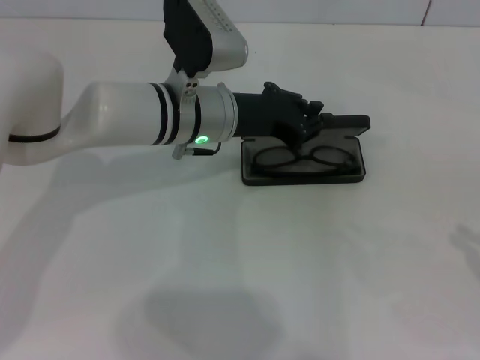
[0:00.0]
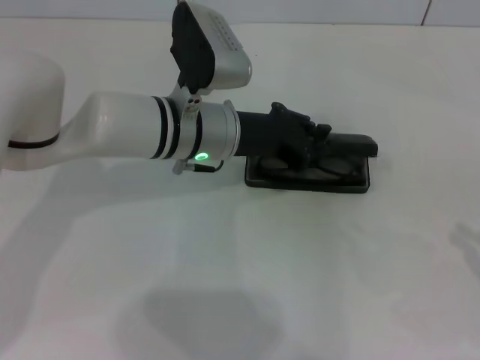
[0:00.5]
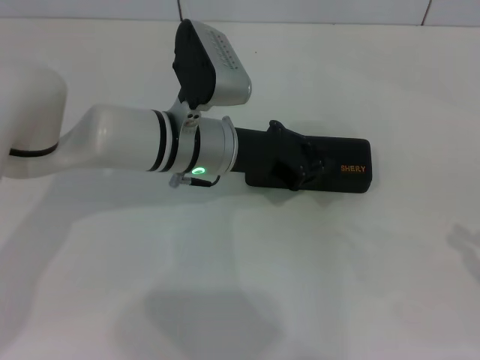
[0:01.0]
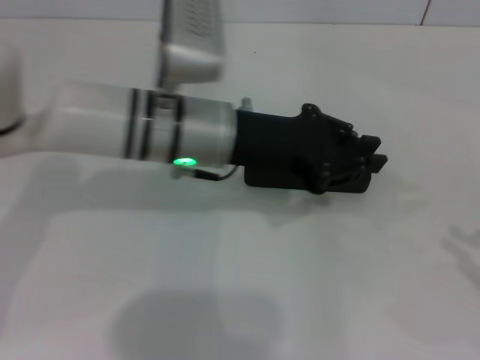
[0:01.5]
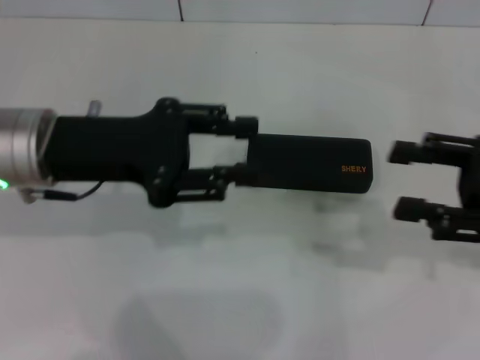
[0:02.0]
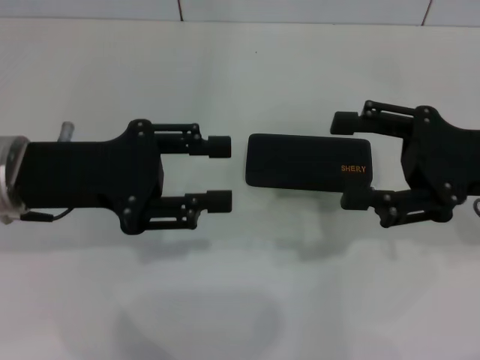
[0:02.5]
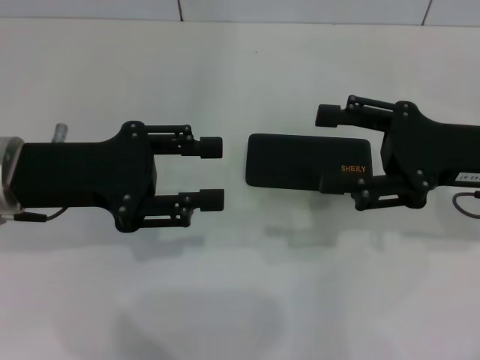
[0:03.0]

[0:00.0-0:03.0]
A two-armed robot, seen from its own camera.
0:00.0 to 0:01.5: The left gripper moves approximately 5 cm.
0:01.5 to 0:03.0: The left gripper travels to the left by roughly 15 cm, and opens up. The right gripper heads to the left and forward, covering roughly 20 cm, and opens its fingers.

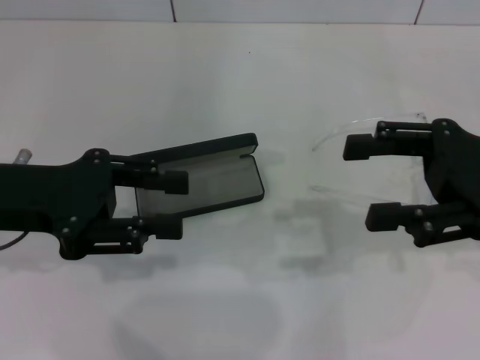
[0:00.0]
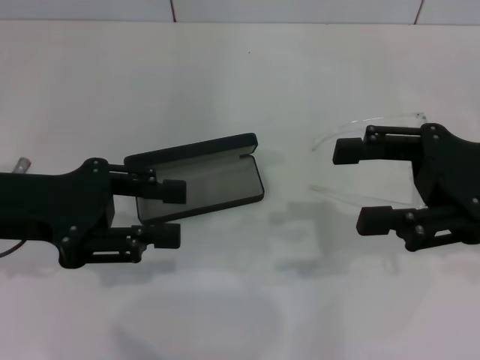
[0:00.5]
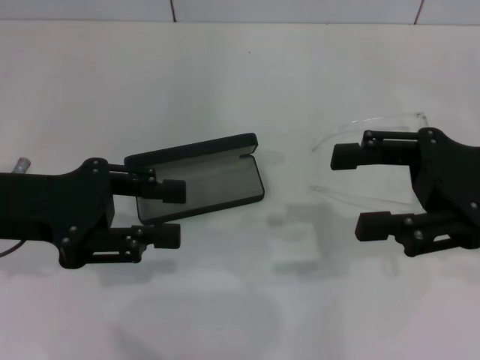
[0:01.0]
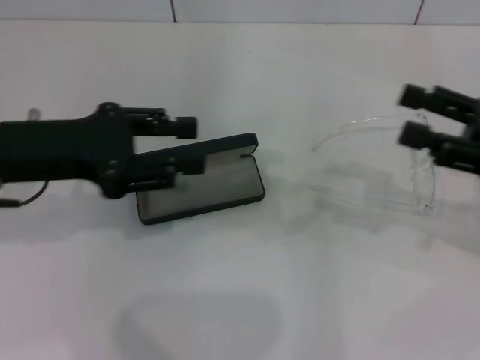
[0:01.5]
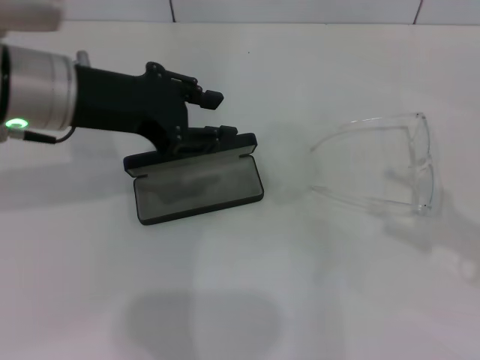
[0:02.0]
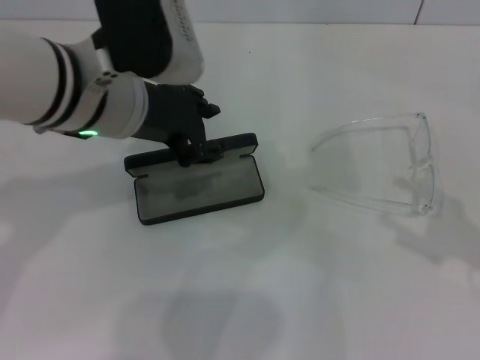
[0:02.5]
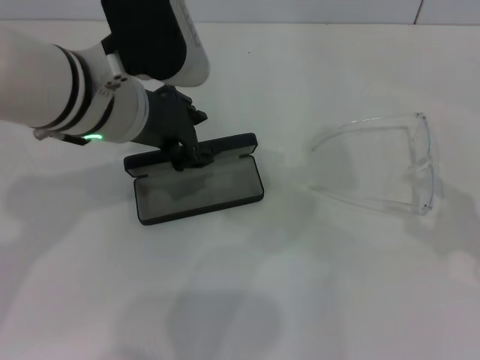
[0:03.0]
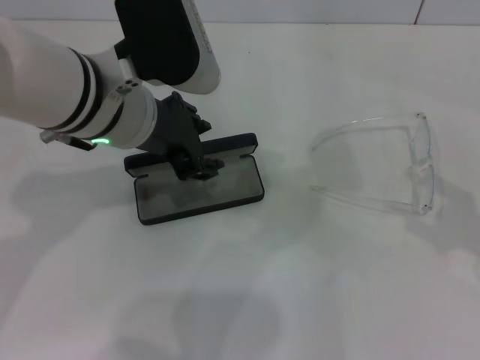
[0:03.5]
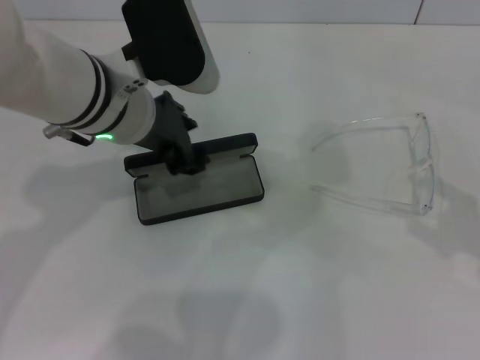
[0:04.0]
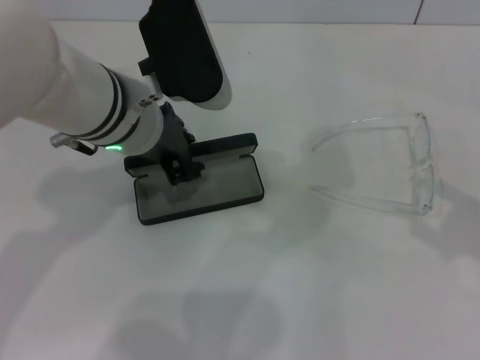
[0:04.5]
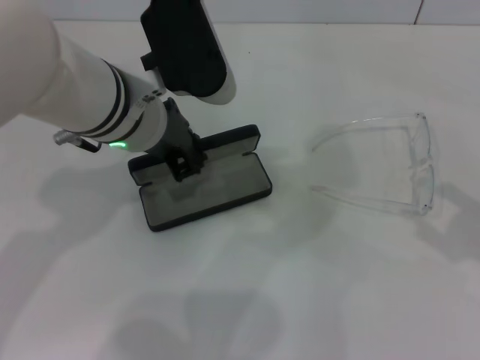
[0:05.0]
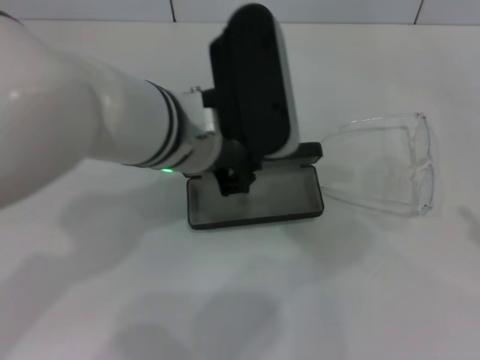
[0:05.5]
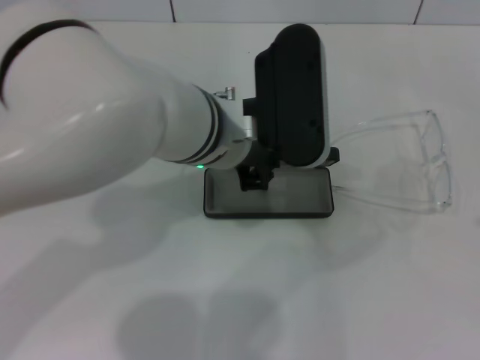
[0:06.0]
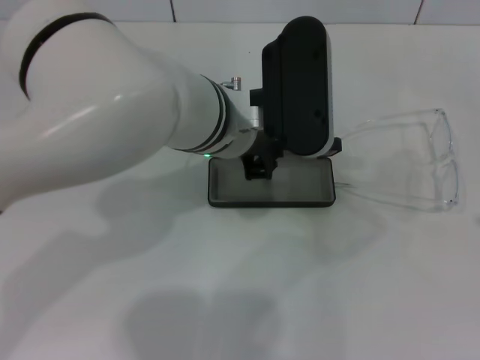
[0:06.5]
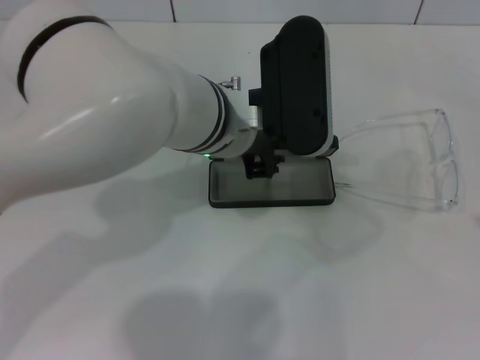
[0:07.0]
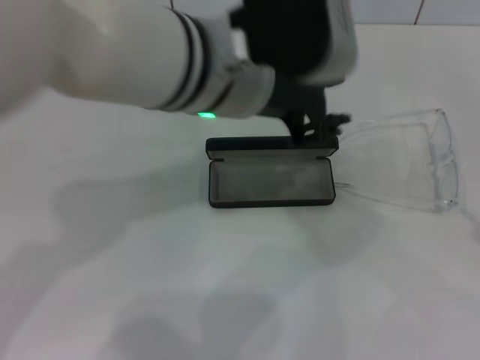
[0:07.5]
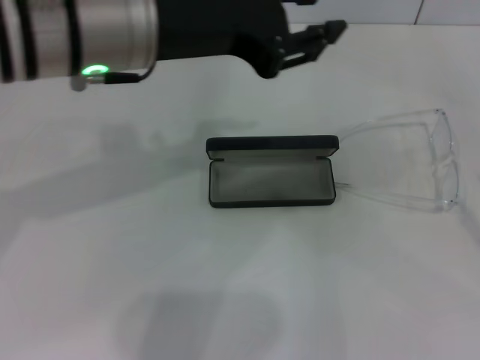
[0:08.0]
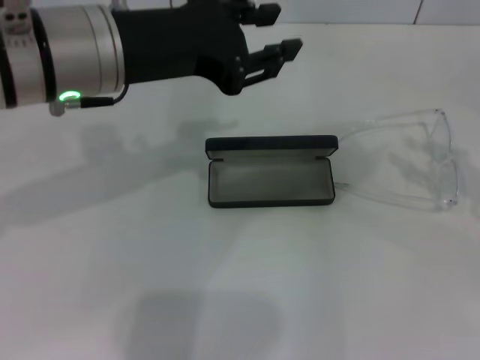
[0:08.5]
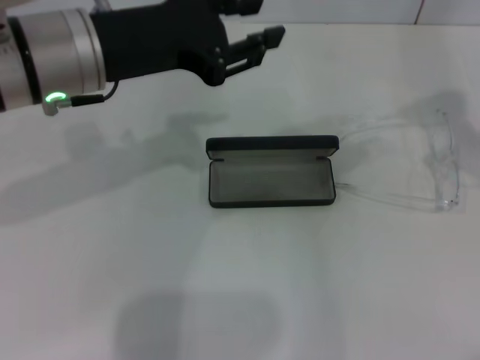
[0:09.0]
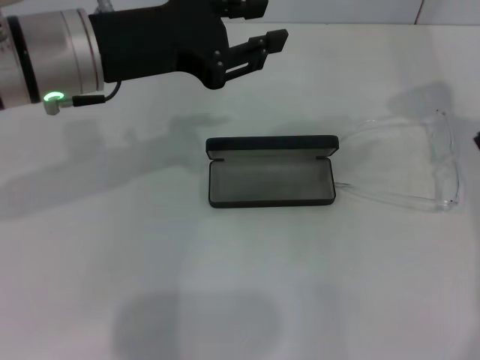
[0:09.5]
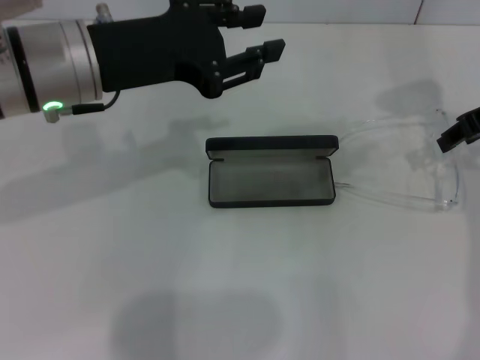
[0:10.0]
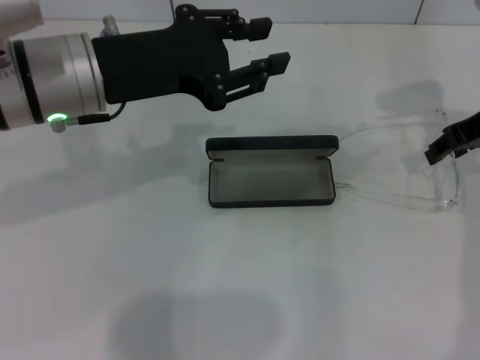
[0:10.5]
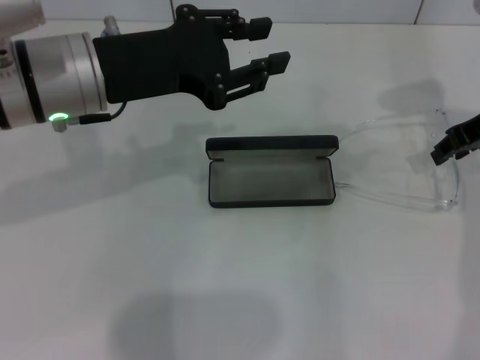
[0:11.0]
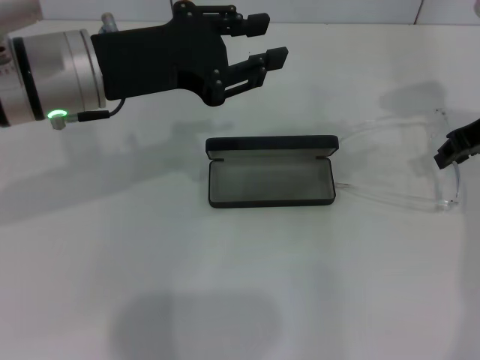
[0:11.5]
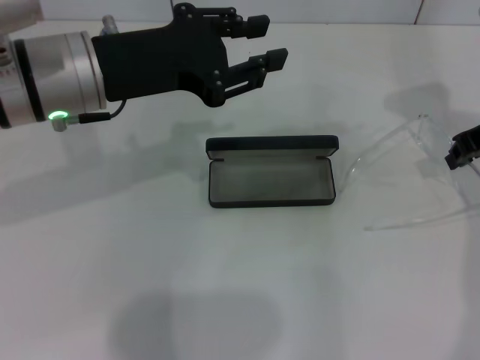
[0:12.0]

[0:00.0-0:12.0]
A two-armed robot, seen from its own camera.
Step, 0:00.0 to 0:04.5: Grab the glasses case with your left hand.
Step, 0:05.0 to 0:07.0: Place the glasses case in the center of the table with your left hand.
Step, 0:07.5 to 0:11.5: Grab the eyeglass frame with your right hand.
0:00.0 to 0:02.0: The left gripper heads to the right, upward and forward, covering about 10 cm, while the right gripper moves to the right, backward and downward, some 10 cm.
0:02.0 to 0:04.0: The left gripper is displaced to the right by some 5 cm.
0:04.0 to 0:06.0: The left gripper goes about 10 cm to the right, and closes; the right gripper shifts roughly 5 cm backward.
0:06.0 to 0:08.0: The left gripper heads upward and to the left, covering roughly 15 cm, and opens.
0:08.0 to 0:10.0: The right gripper heads forward, to the left and upward, covering approximately 25 cm; the left gripper shifts approximately 5 cm downward.
0:10.0 to 0:12.0: There are only small adjustments of the grippers.

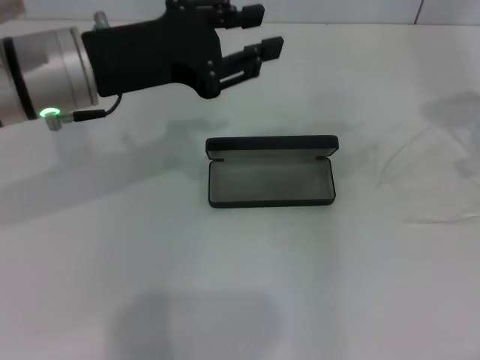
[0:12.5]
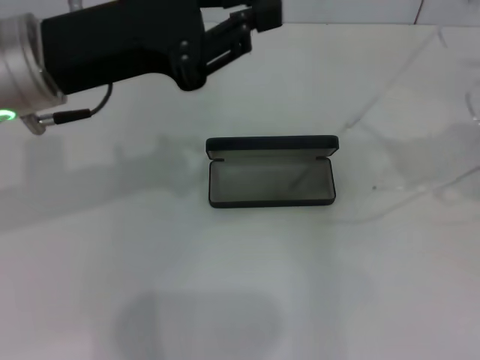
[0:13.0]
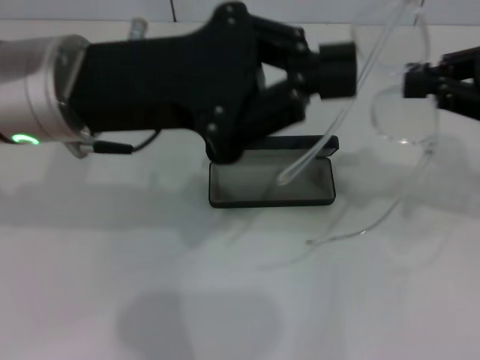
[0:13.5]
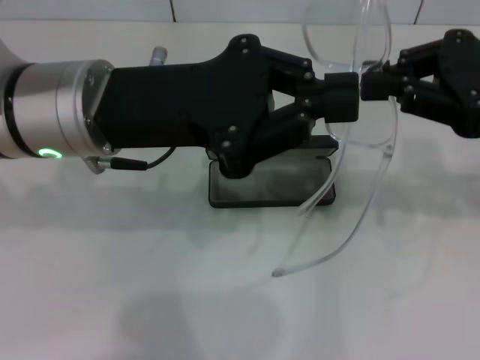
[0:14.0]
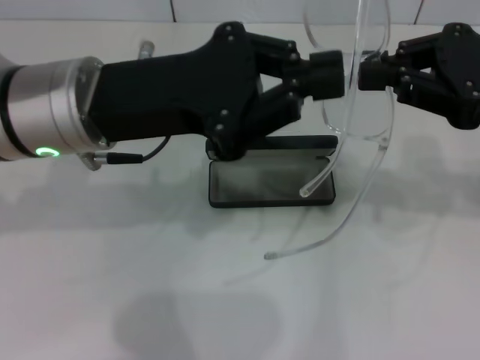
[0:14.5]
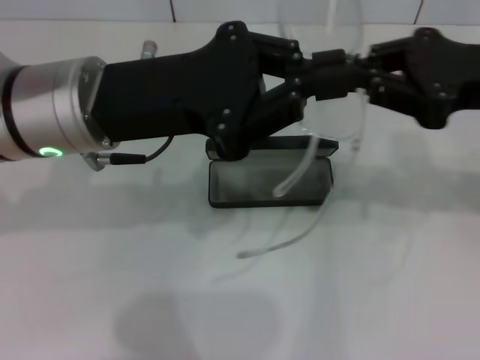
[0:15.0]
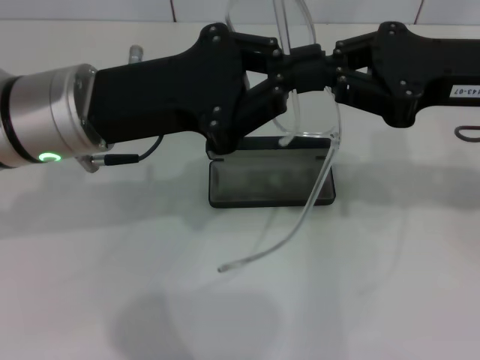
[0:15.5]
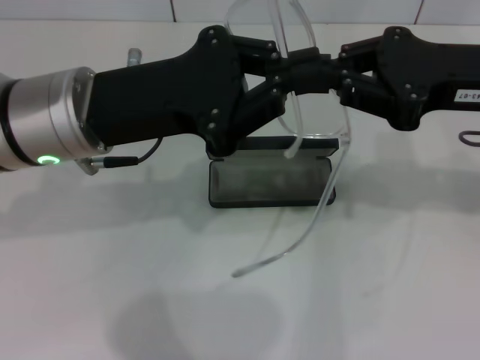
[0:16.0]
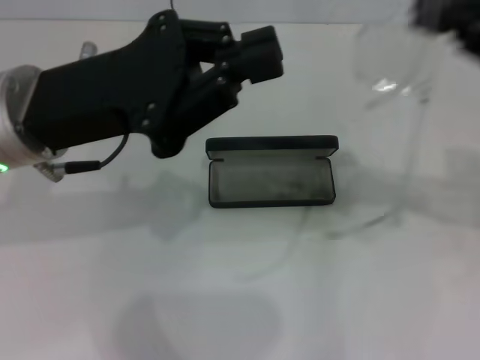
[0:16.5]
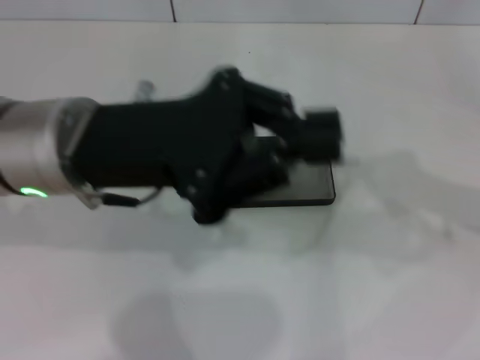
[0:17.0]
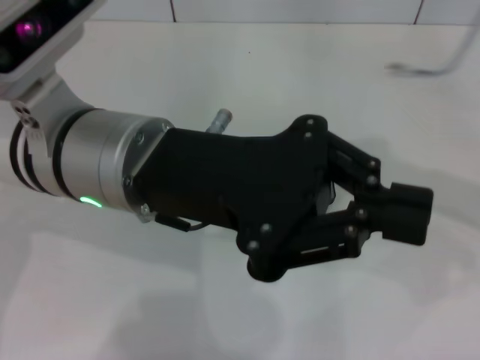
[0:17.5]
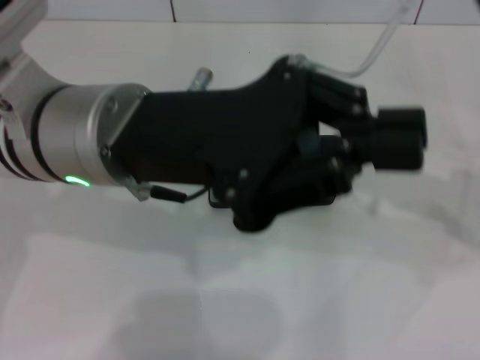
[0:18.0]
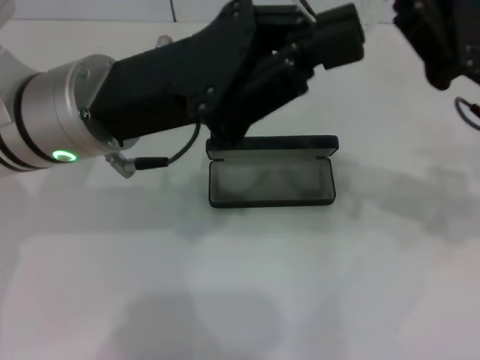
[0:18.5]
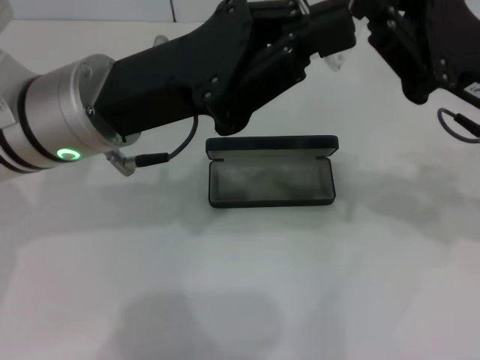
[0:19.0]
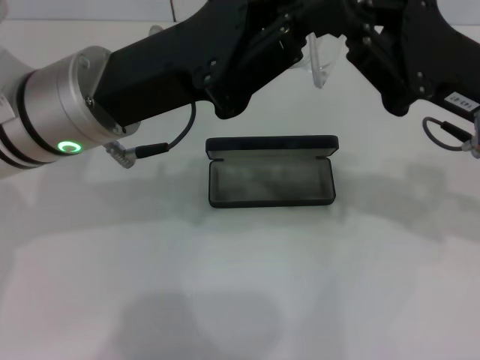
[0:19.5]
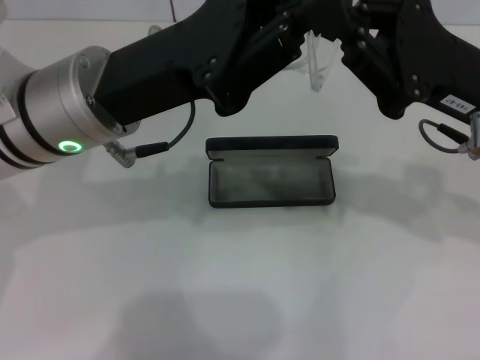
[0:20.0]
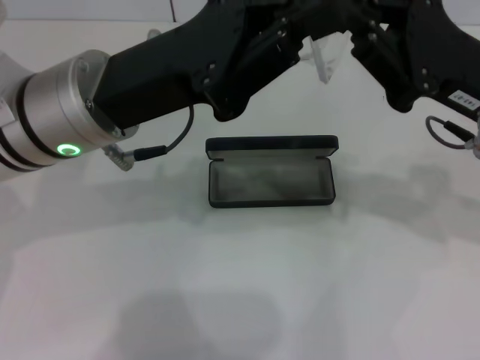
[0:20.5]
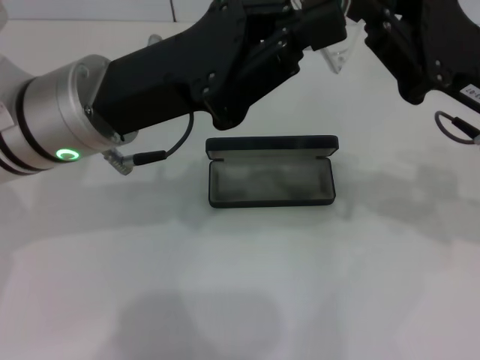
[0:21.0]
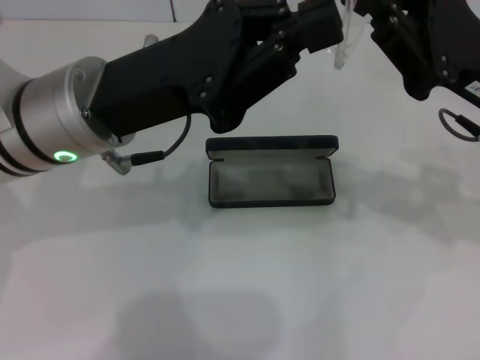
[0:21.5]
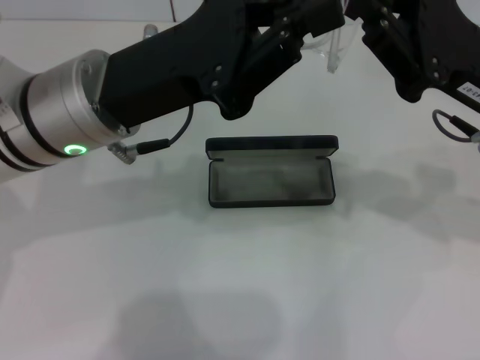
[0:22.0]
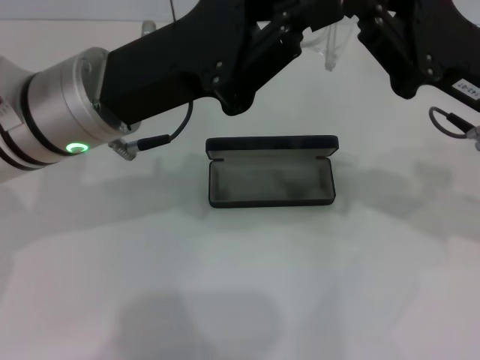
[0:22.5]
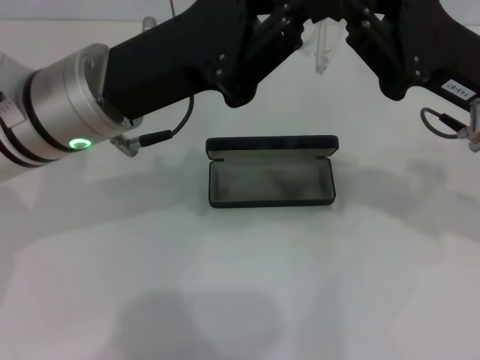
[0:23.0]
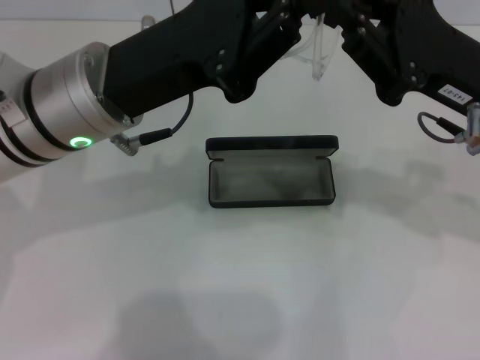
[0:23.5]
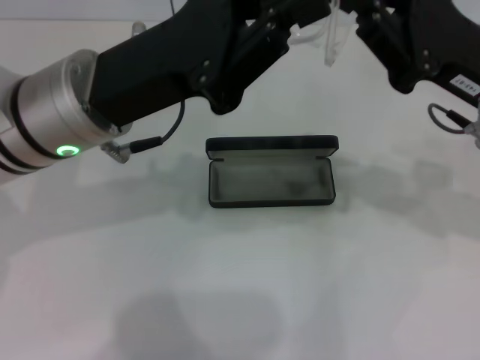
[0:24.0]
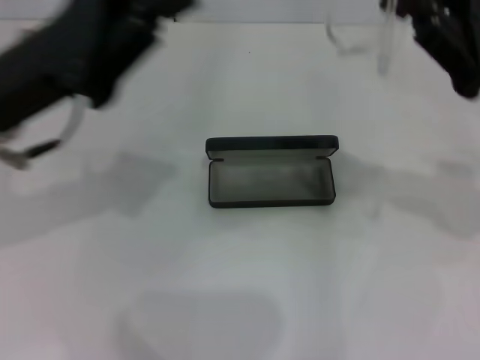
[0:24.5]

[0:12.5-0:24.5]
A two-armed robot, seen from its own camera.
Step, 0:12.5 to 0:19.0: Fold the frame with your left hand.
0:12.5 to 0:14.5: The right gripper shifts some 10 cm backward and to the left. Meanwhile the left gripper closes up.
0:16.5 to 0:18.5: The right gripper changes place by approximately 5 cm.
0:18.5 to 0:22.5: The grippers stay close to where they were, moving slightly.
0:22.5 to 0:24.5: The right gripper ends up about 5 cm from where it was. Meanwhile the left gripper travels to the left by roughly 10 cm.
